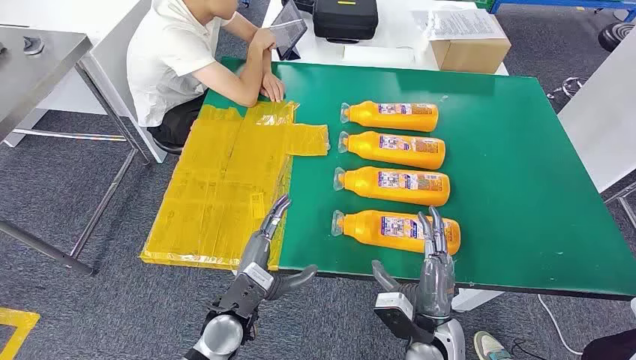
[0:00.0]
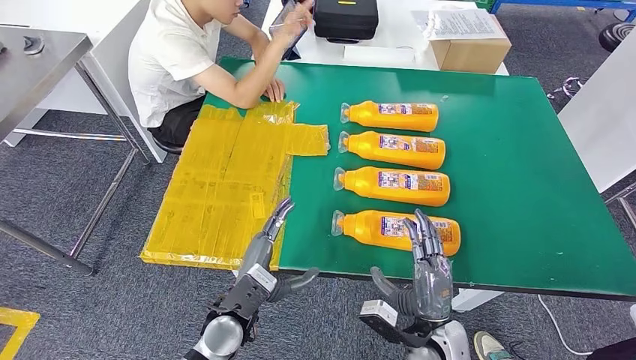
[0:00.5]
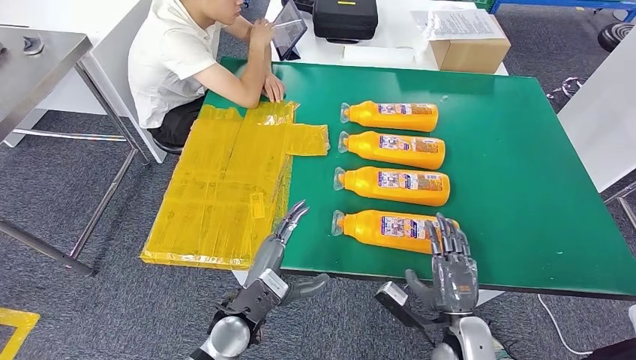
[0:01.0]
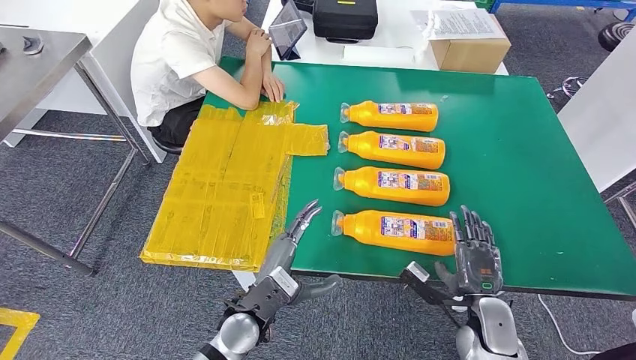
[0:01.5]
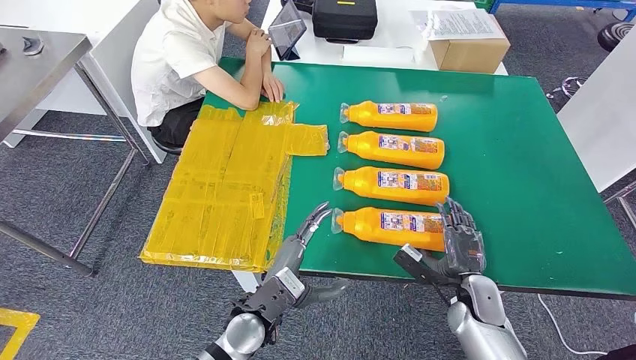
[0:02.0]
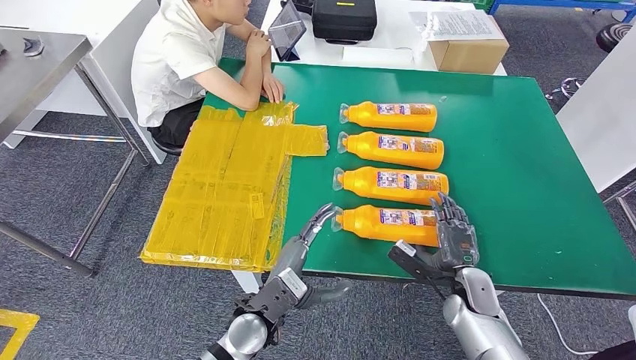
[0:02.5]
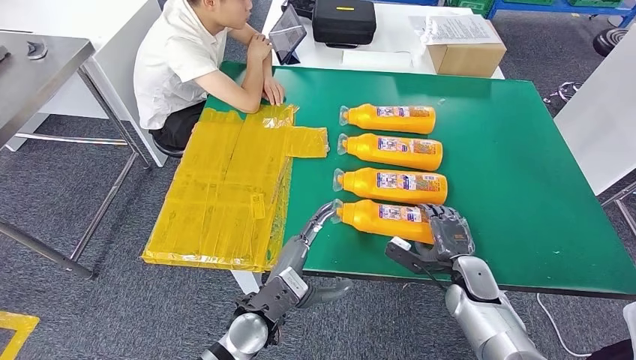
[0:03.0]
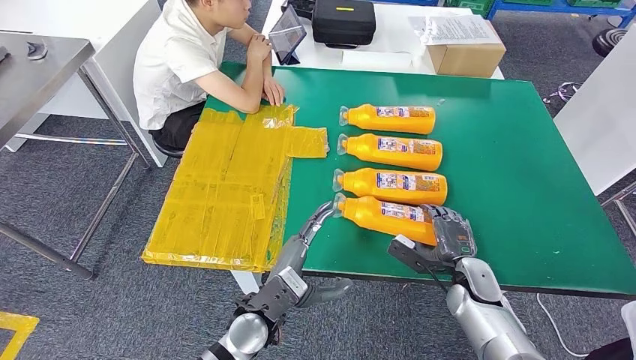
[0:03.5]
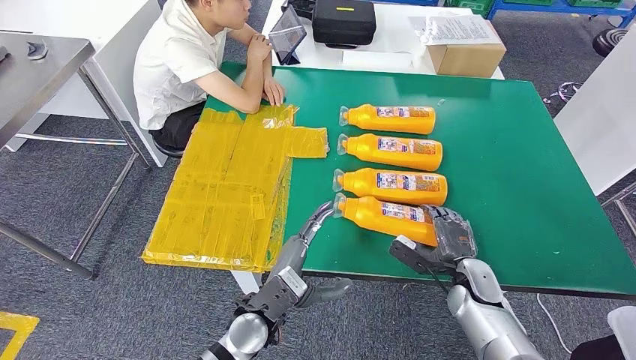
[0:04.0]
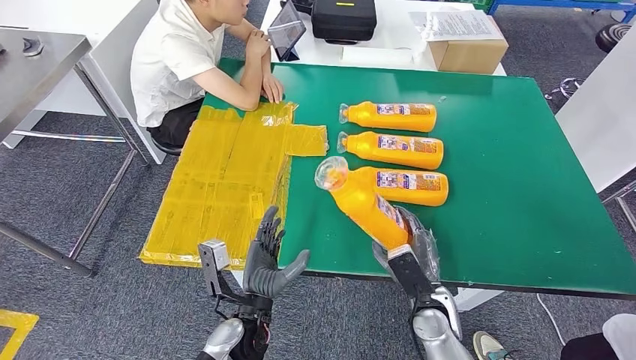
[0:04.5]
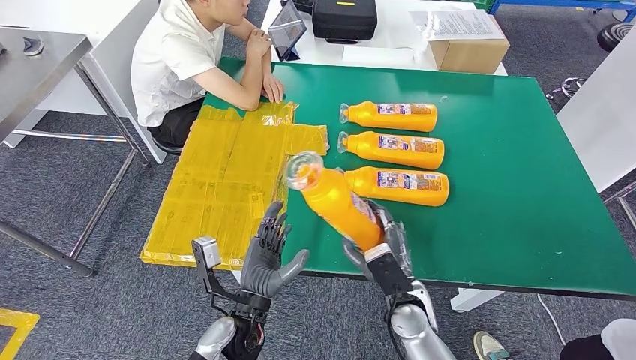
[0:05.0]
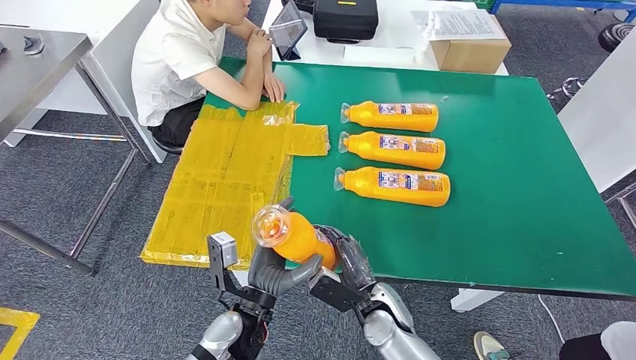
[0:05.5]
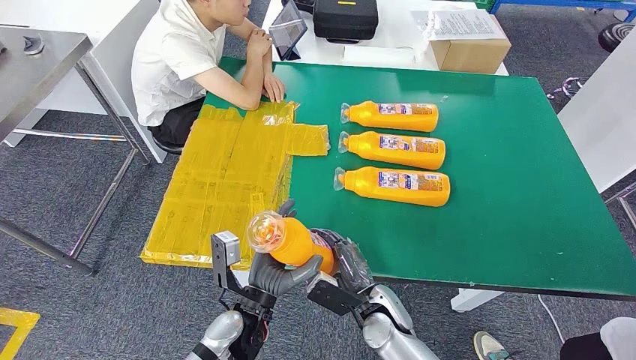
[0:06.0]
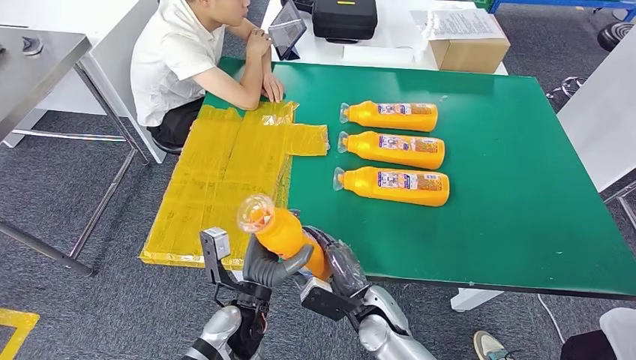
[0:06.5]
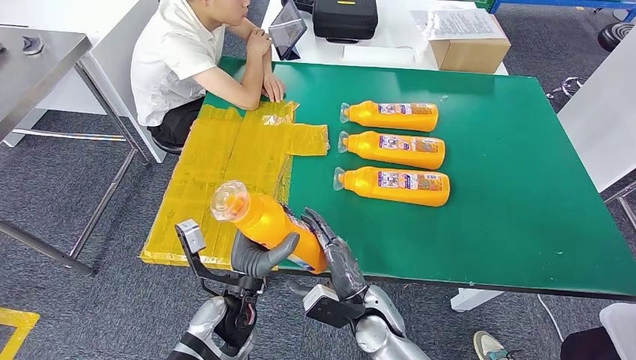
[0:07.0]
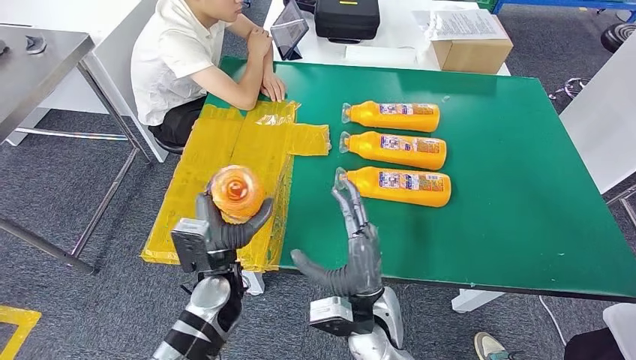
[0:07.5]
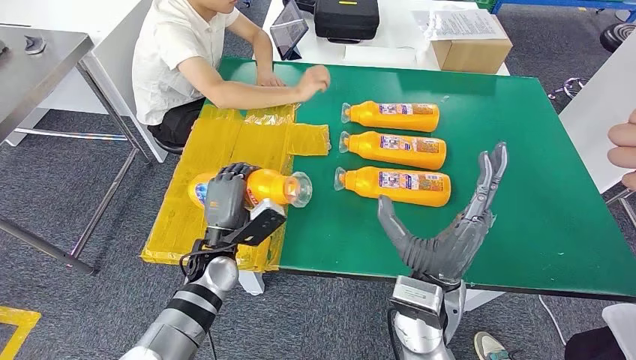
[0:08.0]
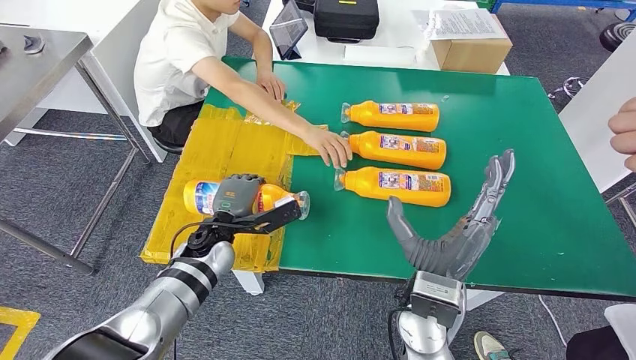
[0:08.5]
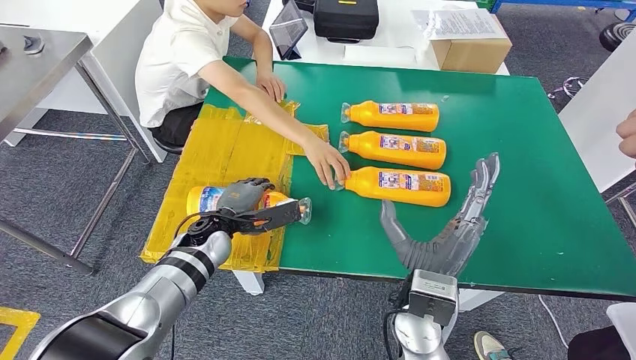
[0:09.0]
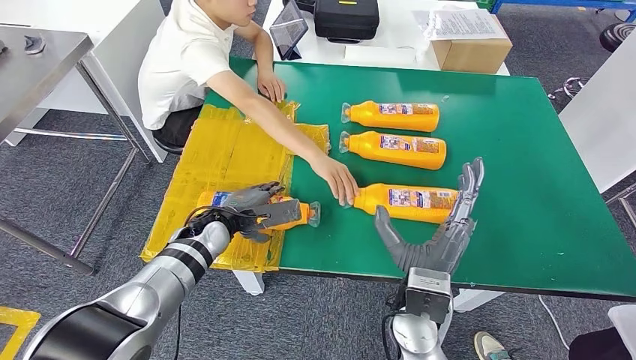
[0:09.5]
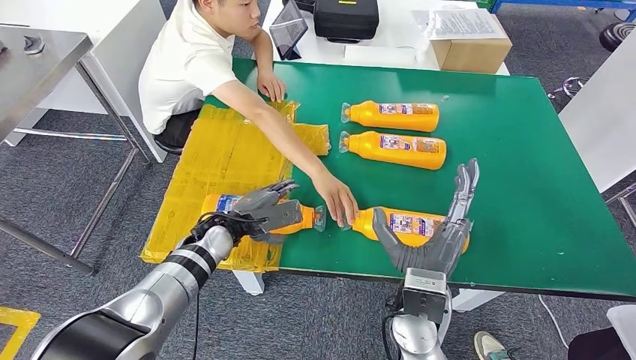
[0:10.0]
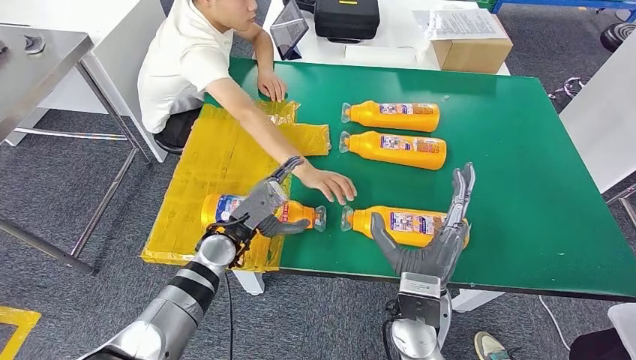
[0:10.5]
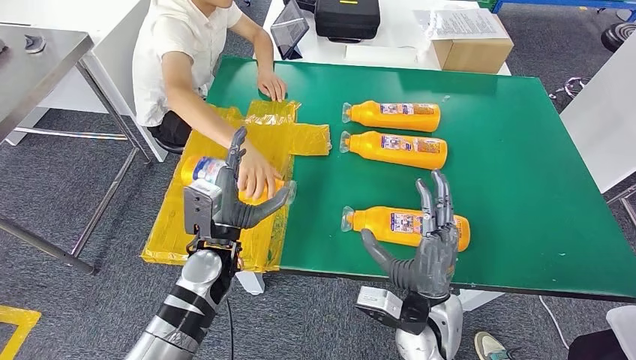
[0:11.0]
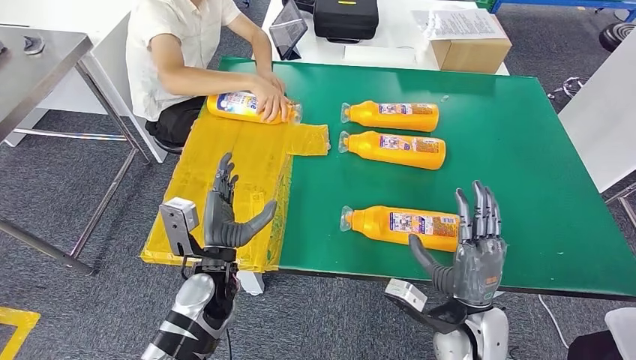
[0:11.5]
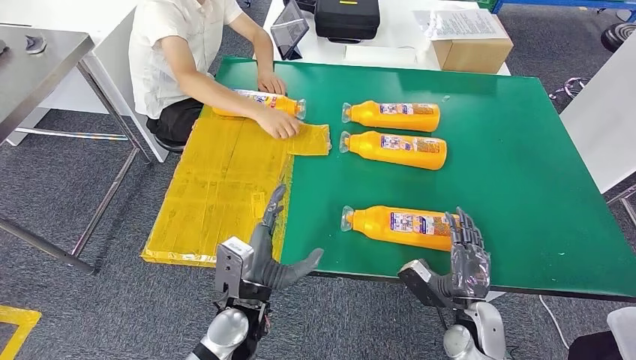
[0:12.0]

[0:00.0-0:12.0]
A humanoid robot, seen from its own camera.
Step, 0:00.0 to 0:06.5: Take the fast-moving consumer goods bottle from the table.
Step, 0:07.0 to 0:09.5: Flip the fast-moving consumer goods bottle to the front side.
0:02.0 to 0:04.0: The hands make only small movements.
0:06.0 to 0:08.0: The right hand heads upward, covering roughly 15 cm. The left hand heads forward and to the left, covering roughly 10 cm.

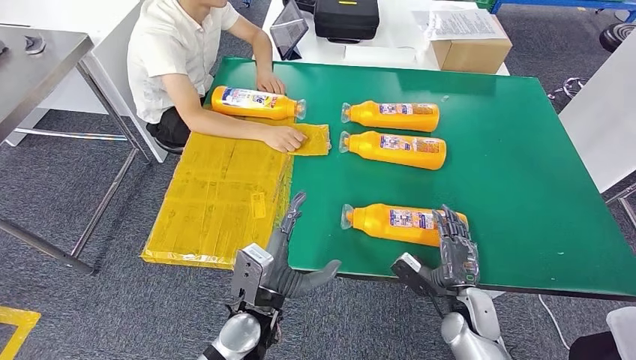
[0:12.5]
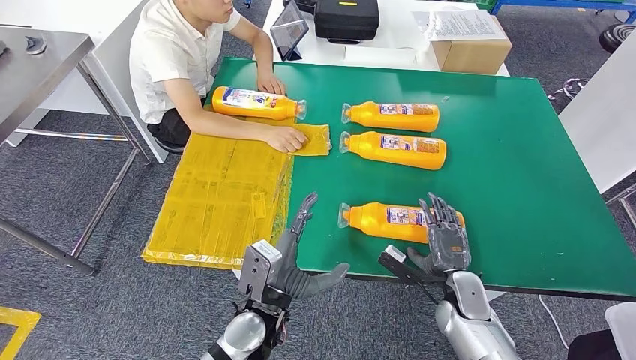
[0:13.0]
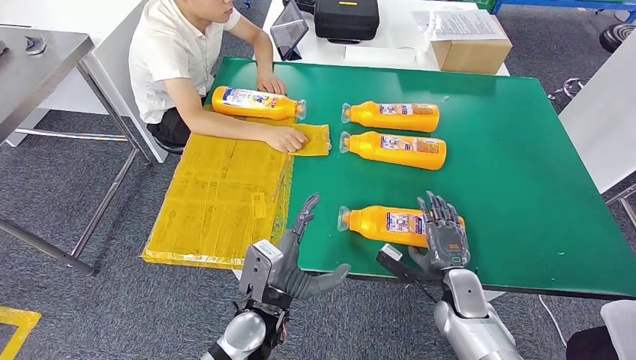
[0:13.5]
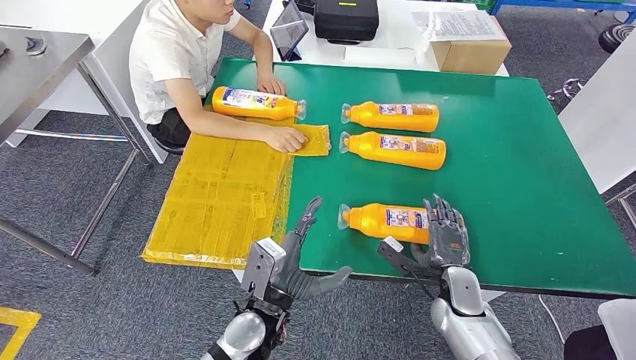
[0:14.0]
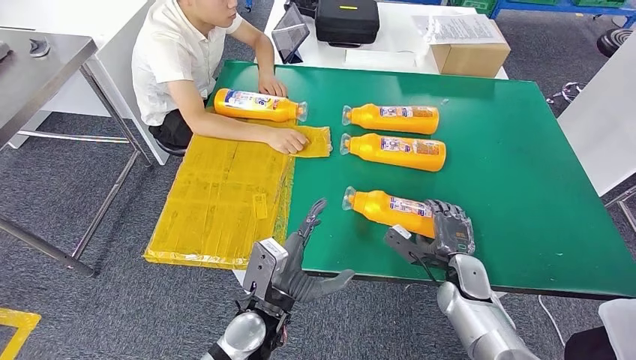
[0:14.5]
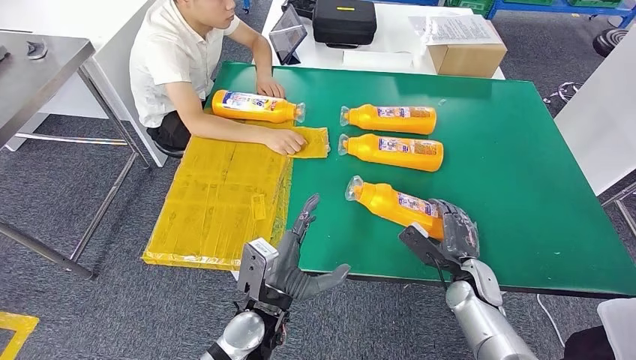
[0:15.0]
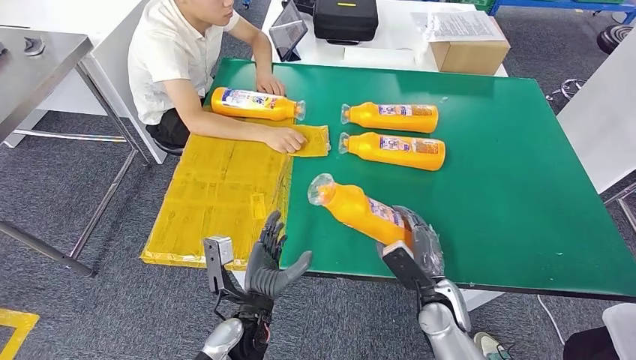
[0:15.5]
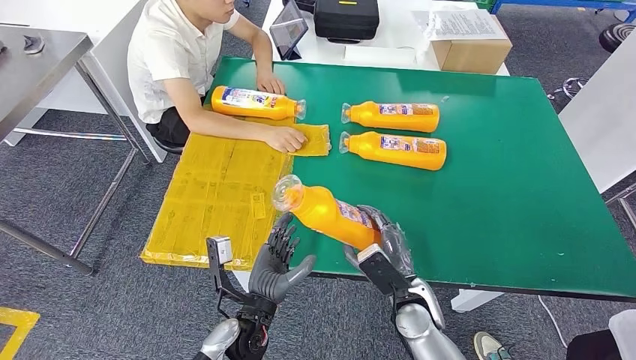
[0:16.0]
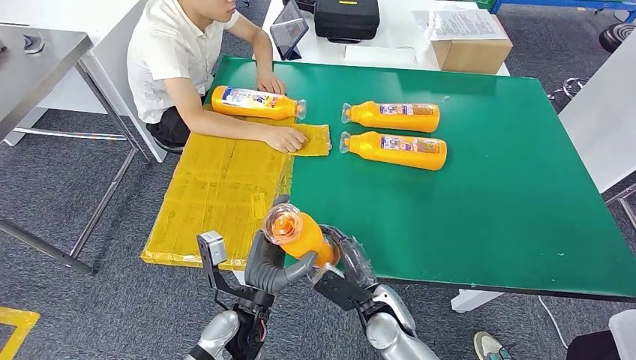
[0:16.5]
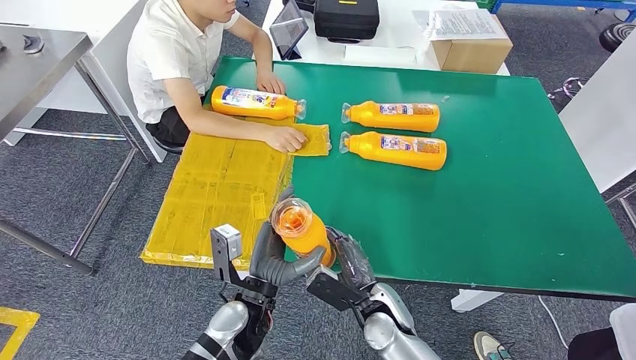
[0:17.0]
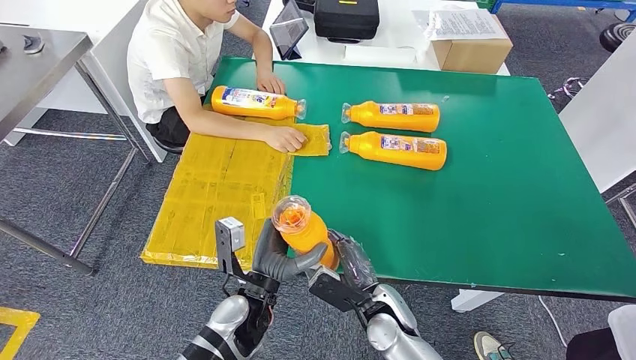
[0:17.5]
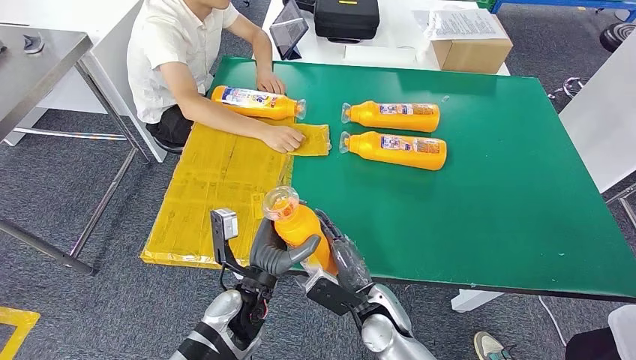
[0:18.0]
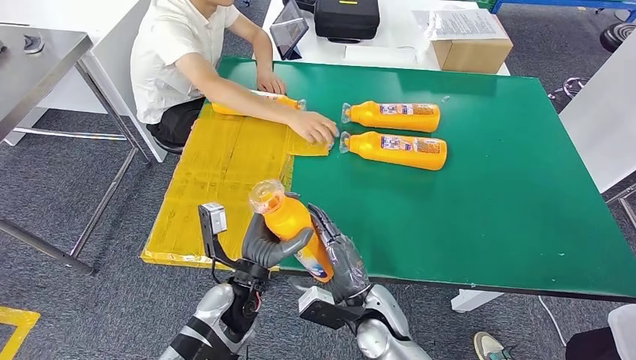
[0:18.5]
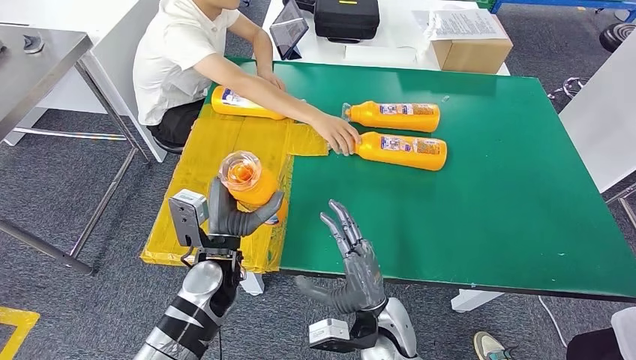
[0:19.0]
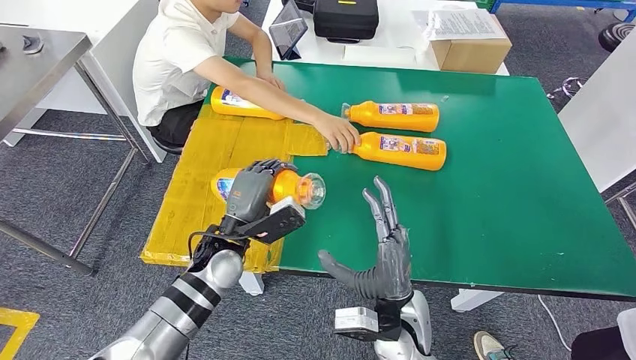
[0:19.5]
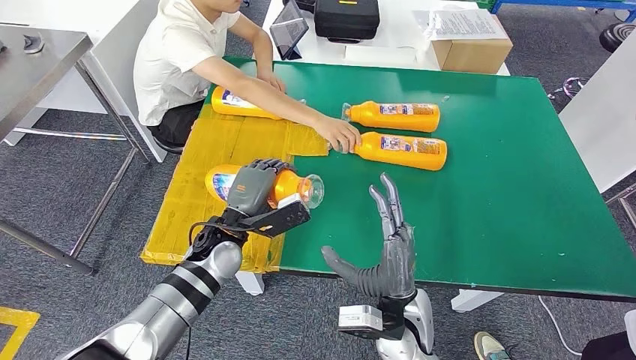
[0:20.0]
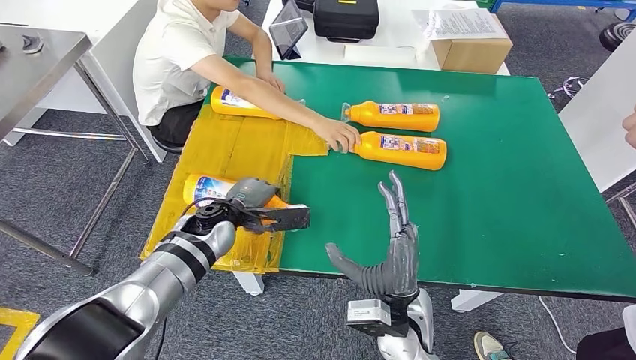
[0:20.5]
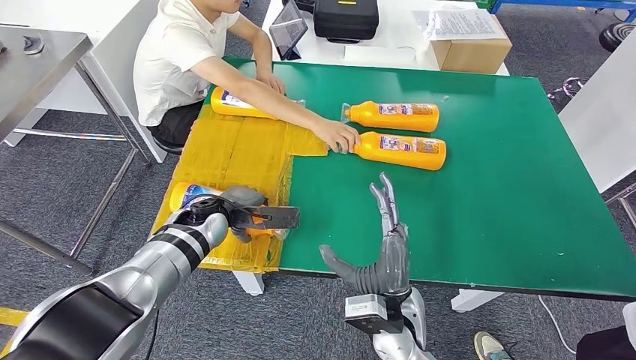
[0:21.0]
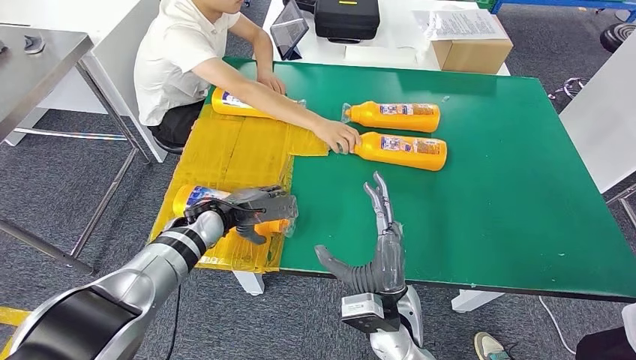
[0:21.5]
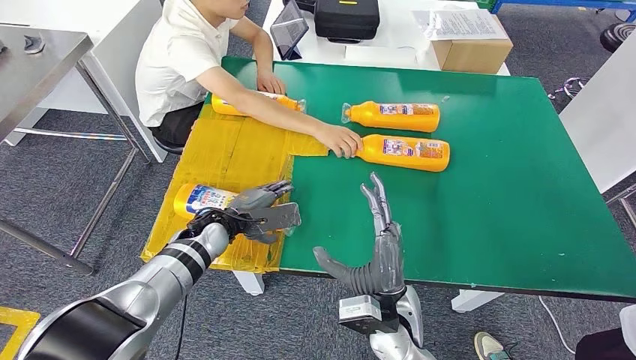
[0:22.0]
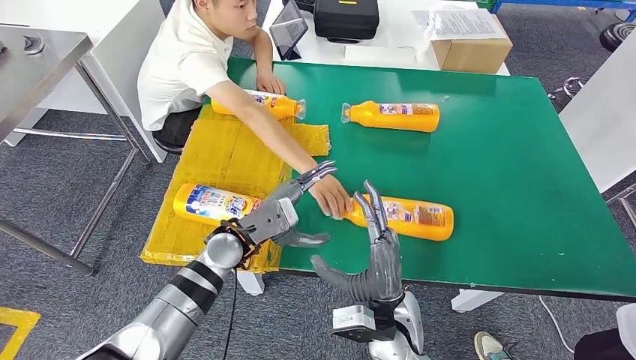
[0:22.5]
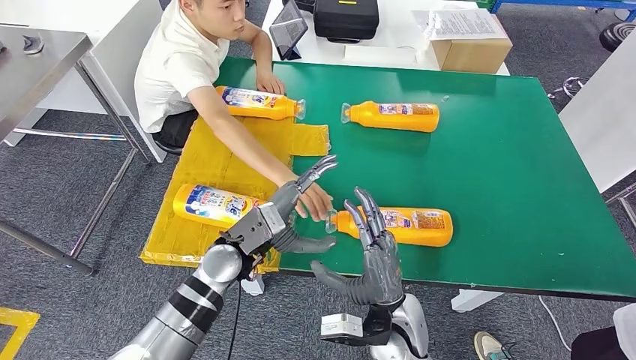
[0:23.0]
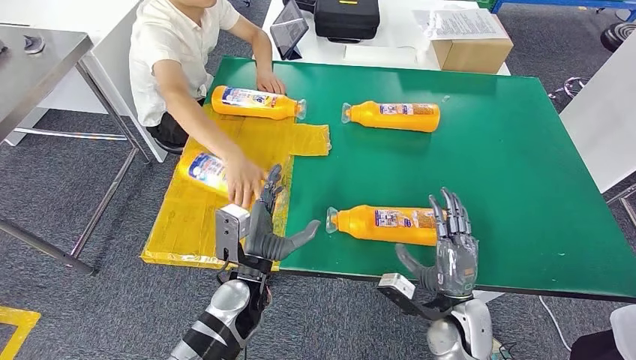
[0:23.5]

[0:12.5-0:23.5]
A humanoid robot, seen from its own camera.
Step, 0:12.5 to 0:17.5: Pick up the fast-moving consumer goods bottle from the table.
Step, 0:18.0 to 0:21.5: Flip the fast-moving consumer goods bottle to the front side.
0:12.5 to 0:14.5: The hands stay close to where they were, moving slightly.
0:16.0 to 0:18.0: The right hand goes about 5 cm to the left.
0:18.0 to 0:20.0: The left hand heads forward and to the left, covering some 10 cm; the right hand shifts approximately 10 cm upward.
0:20.0 to 0:21.5: The left hand shifts by approximately 5 cm.
